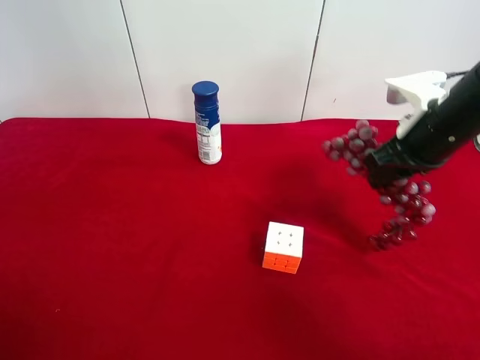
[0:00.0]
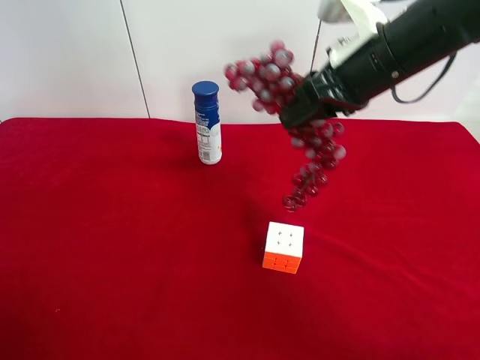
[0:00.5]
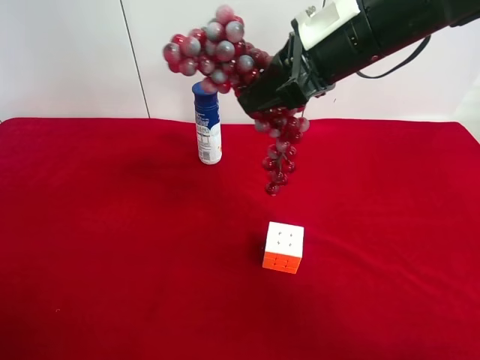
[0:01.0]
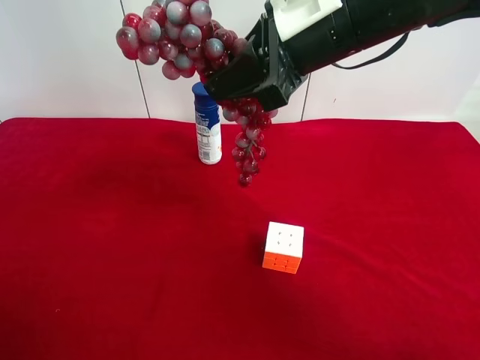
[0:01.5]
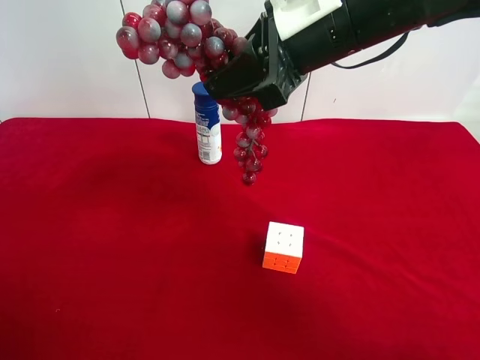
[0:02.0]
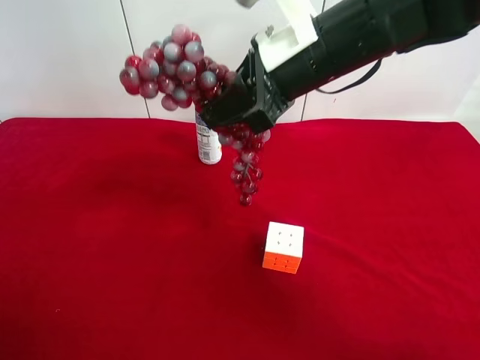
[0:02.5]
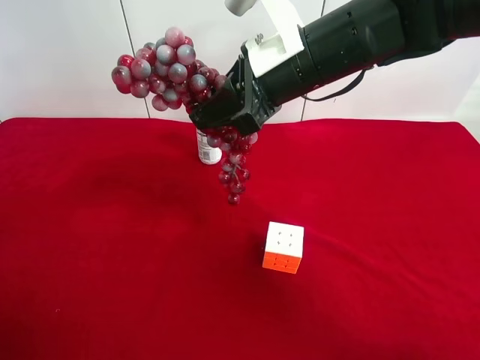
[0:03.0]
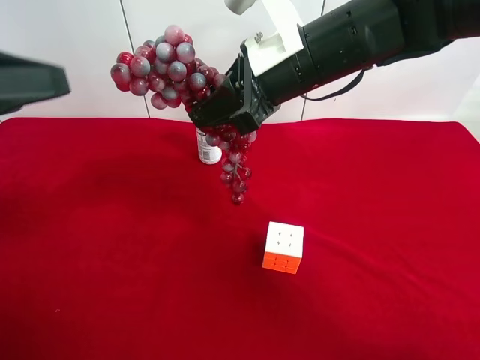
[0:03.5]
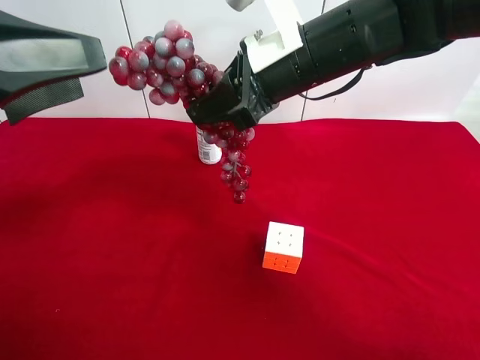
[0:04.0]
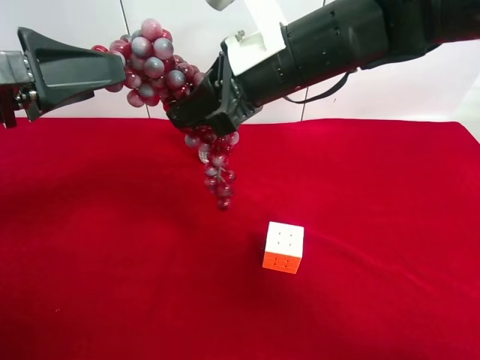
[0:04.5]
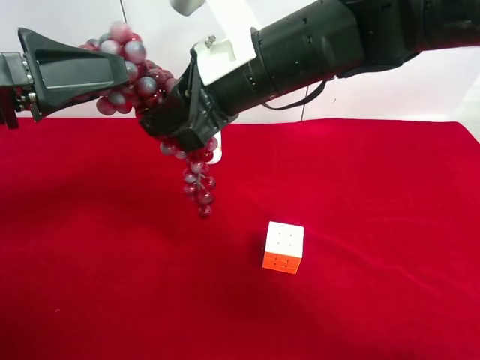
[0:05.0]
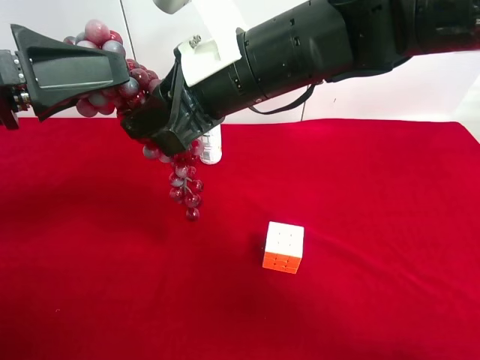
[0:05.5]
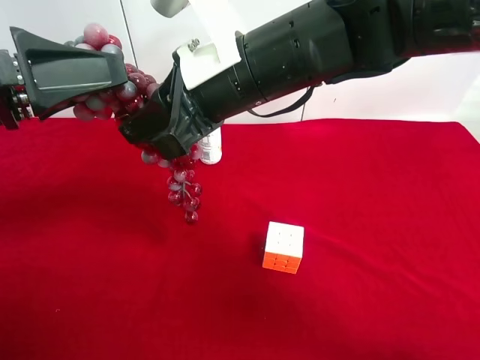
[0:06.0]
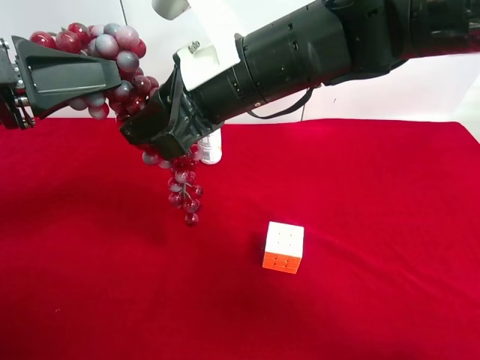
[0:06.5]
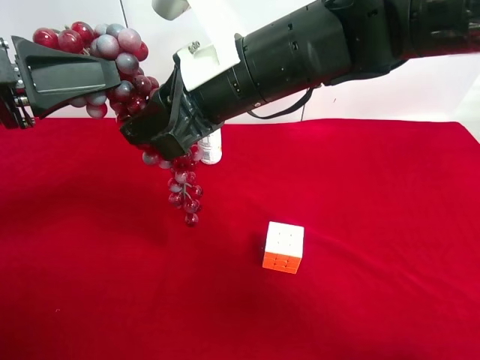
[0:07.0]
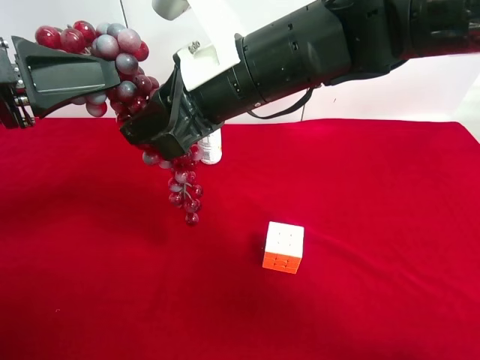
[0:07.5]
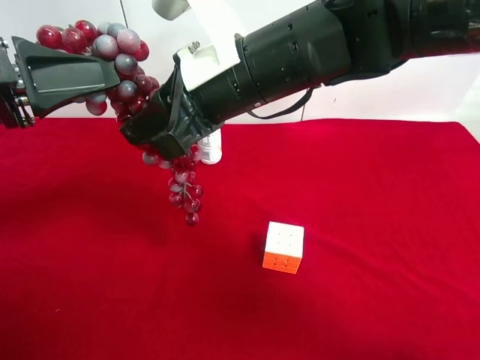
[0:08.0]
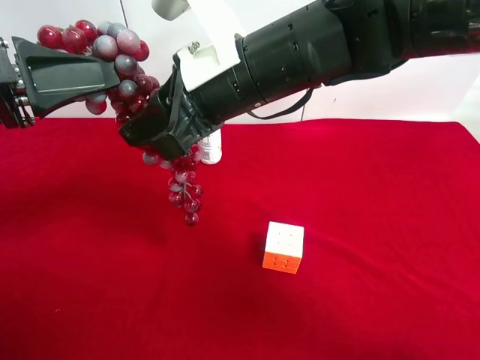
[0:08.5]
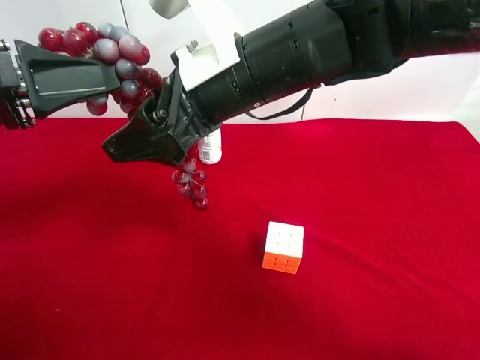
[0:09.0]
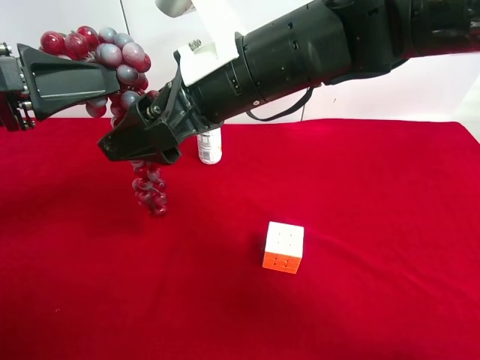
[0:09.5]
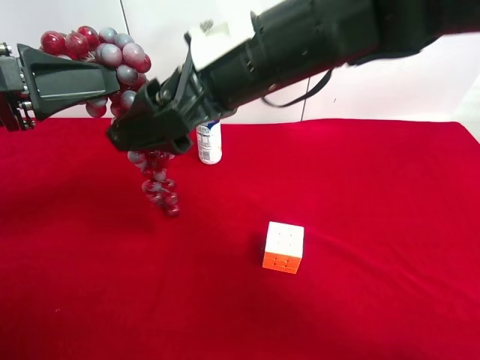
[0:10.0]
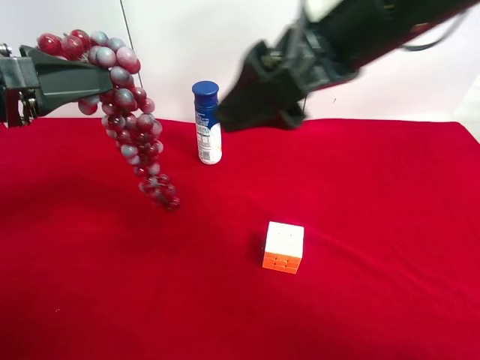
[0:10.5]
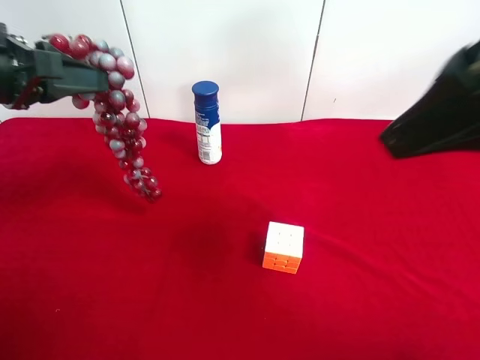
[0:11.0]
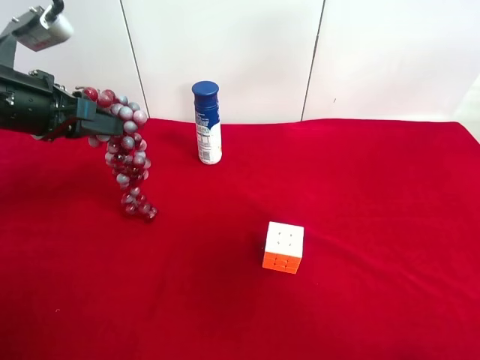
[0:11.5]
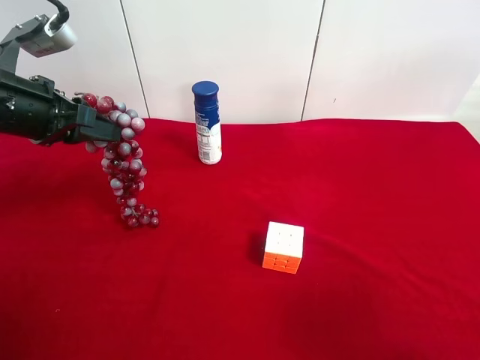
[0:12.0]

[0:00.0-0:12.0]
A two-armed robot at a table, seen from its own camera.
Task of the whole recording: use the right gripper to pick up the item and transfer it from the right gripper to the left gripper.
0:00.0 to 0:02.0: The right gripper travels to the left and upward by some 15 cm.
0:02.0 to 0:04.0: The left gripper heads forward and to the right, covering roughly 20 cm.
0:04.0 to 0:06.0: The right gripper shifts some 5 cm to the left.
0:06.0 to 0:08.0: The left gripper closes its fingers.
0:08.0 to 0:10.0: The right gripper opens its fingers.
0:10.0 to 0:12.0: The left gripper goes roughly 10 cm forward. Meanwhile the right gripper heads to the right and backward, covering roughly 35 cm.

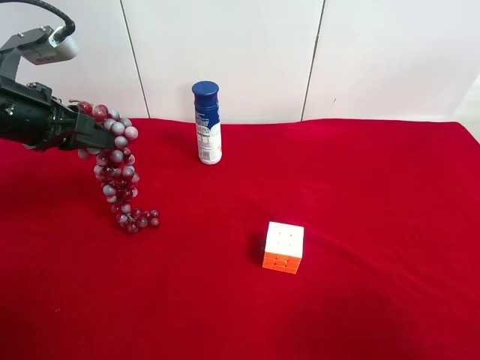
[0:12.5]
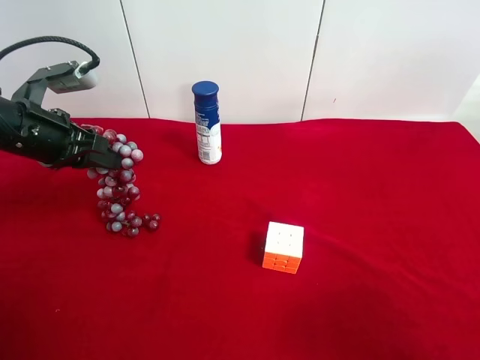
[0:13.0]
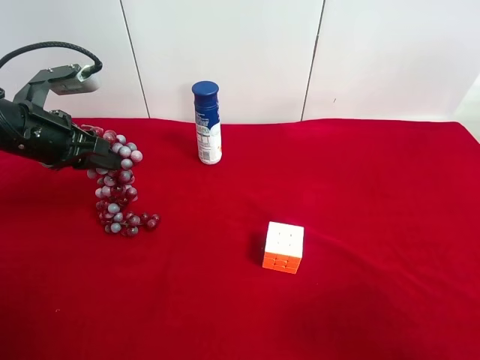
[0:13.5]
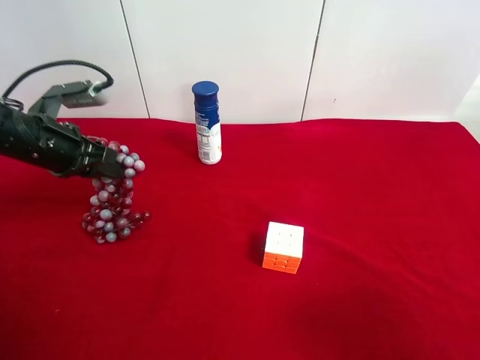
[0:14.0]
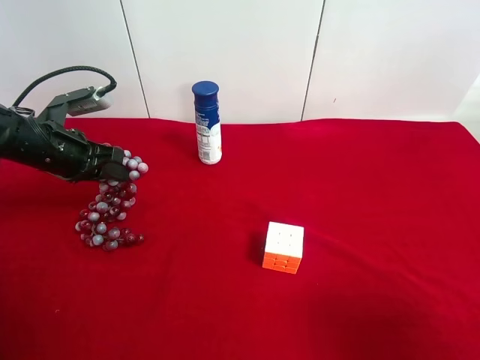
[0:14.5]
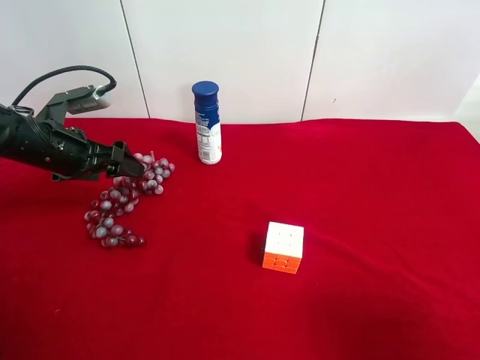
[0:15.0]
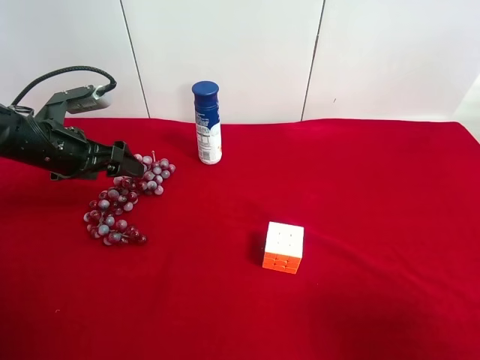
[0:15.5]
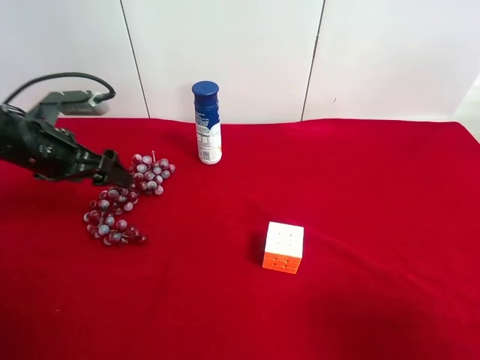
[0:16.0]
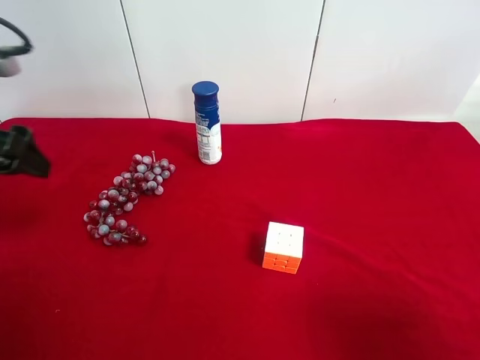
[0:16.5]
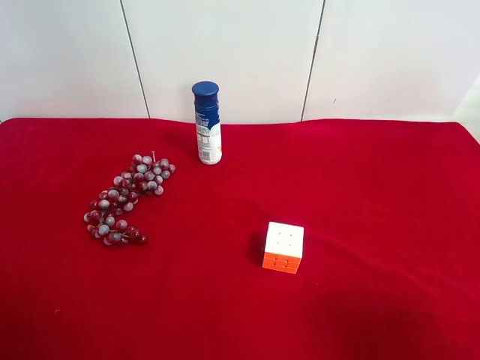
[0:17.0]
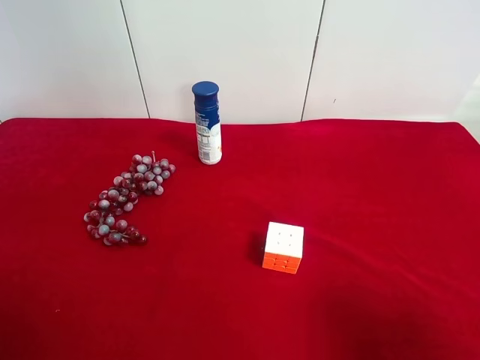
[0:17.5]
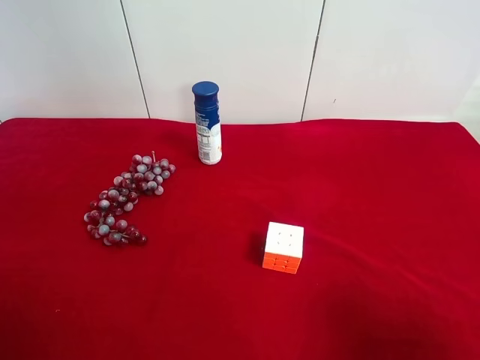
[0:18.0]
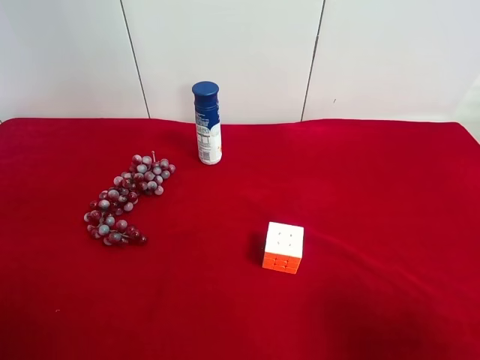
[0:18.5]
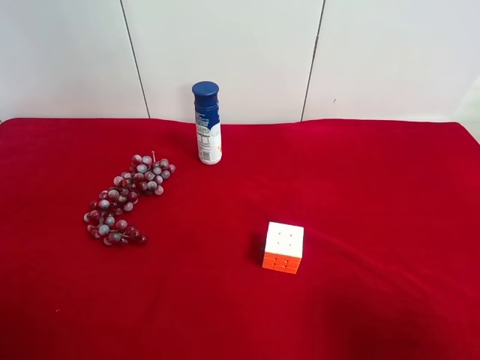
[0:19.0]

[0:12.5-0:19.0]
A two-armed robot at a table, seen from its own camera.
Task of the whole recording: use the right gripper to pick up the item and transfer it from the right gripper to the left gripper.
0:12.5 to 0:14.5: The left gripper goes roughly 10 cm downward.
0:14.5 to 0:17.0: The left gripper goes some 30 cm backward and upward, and opens up.
